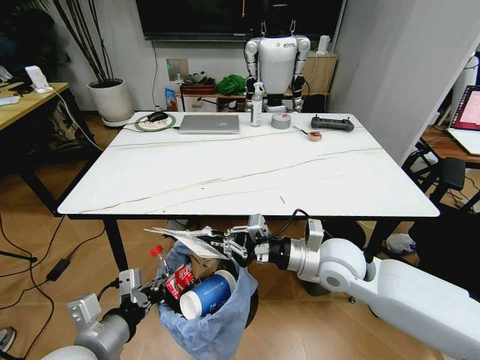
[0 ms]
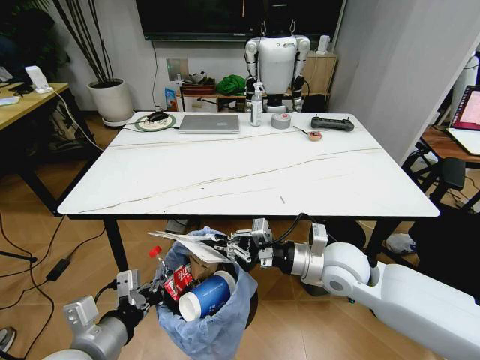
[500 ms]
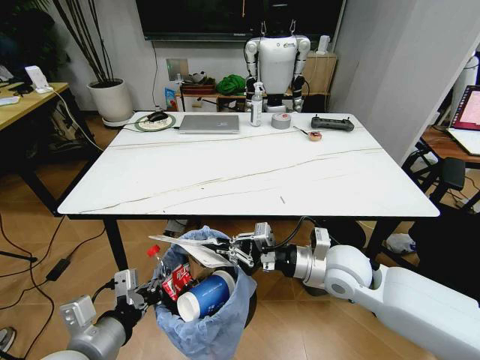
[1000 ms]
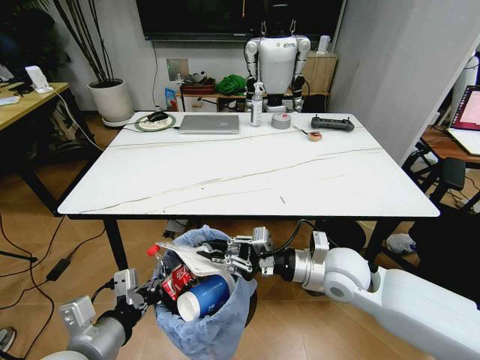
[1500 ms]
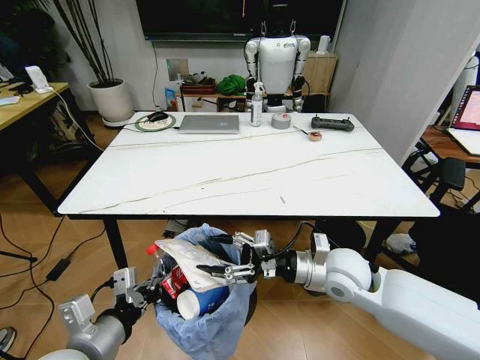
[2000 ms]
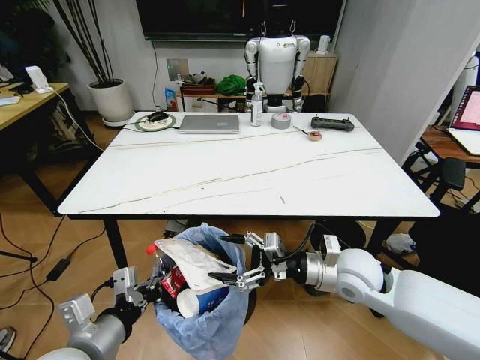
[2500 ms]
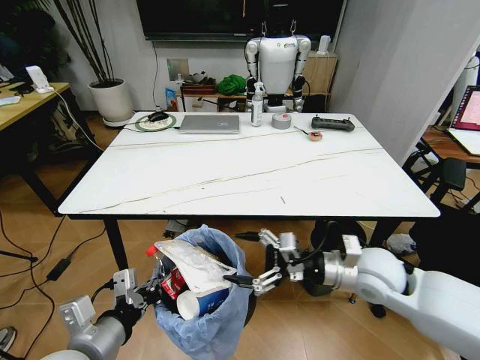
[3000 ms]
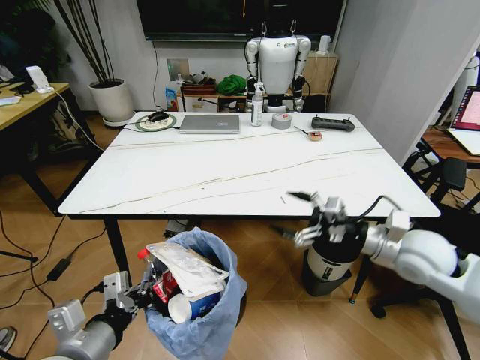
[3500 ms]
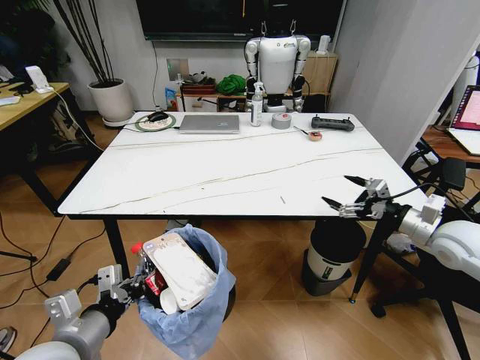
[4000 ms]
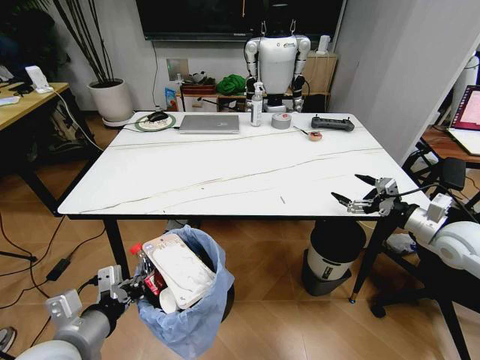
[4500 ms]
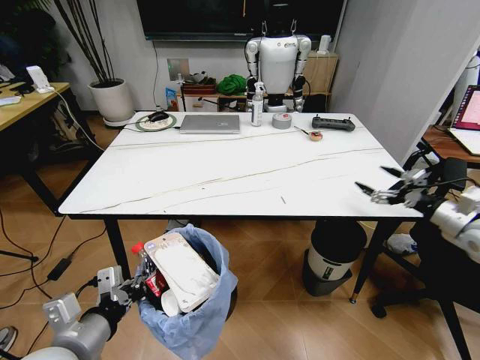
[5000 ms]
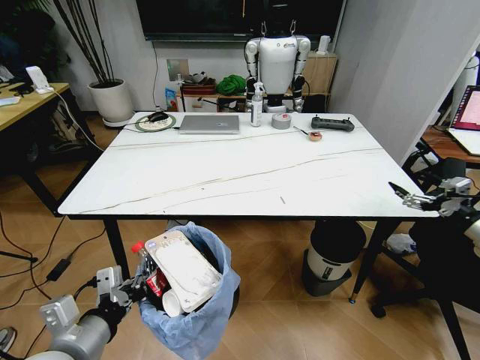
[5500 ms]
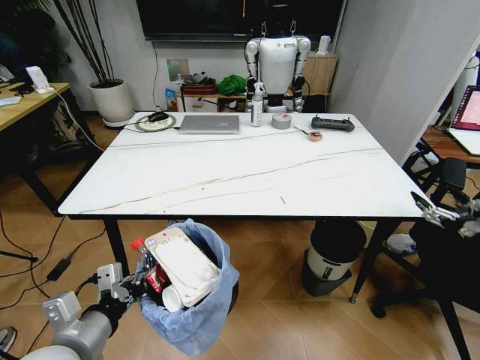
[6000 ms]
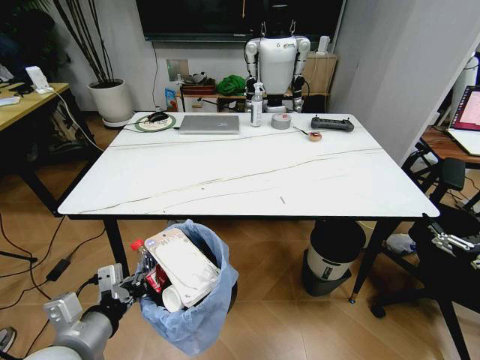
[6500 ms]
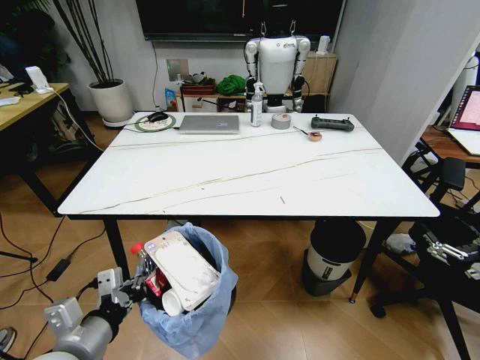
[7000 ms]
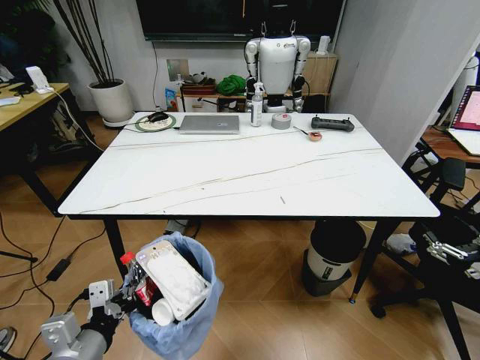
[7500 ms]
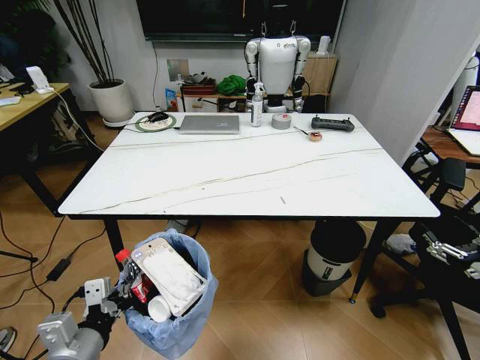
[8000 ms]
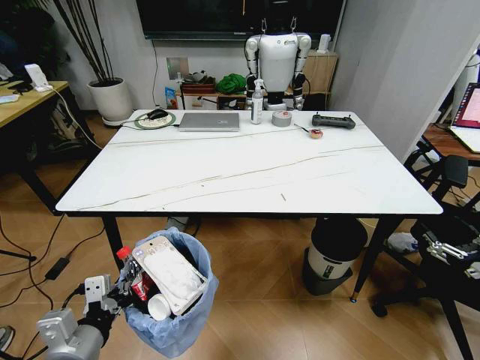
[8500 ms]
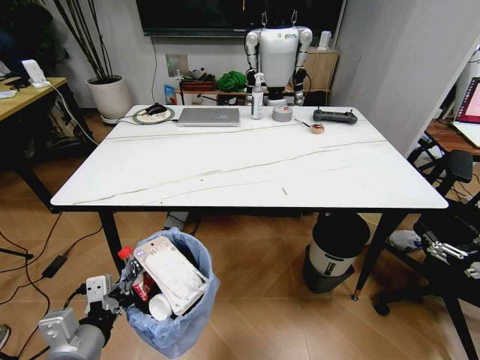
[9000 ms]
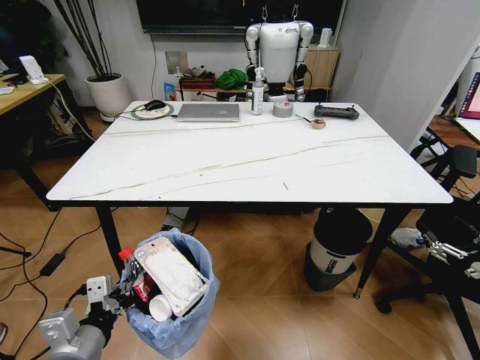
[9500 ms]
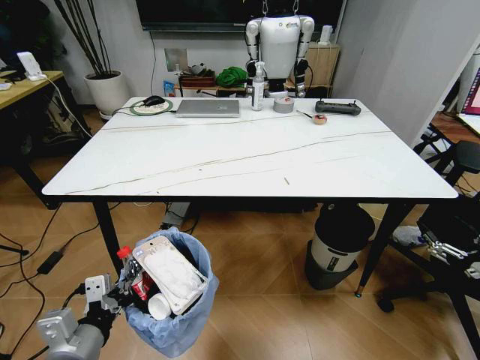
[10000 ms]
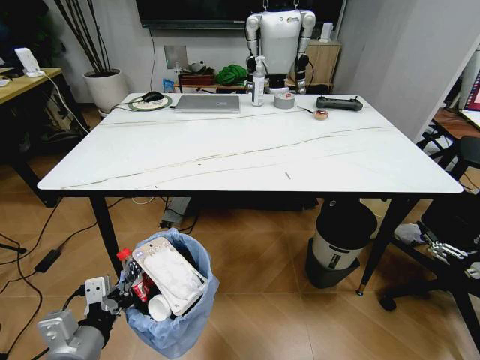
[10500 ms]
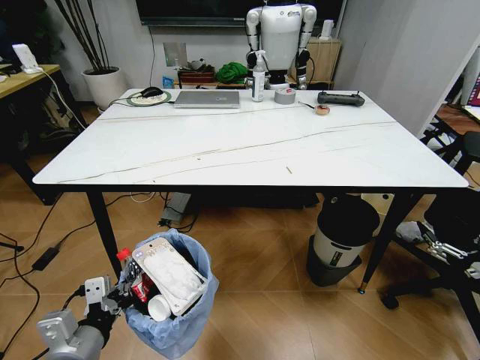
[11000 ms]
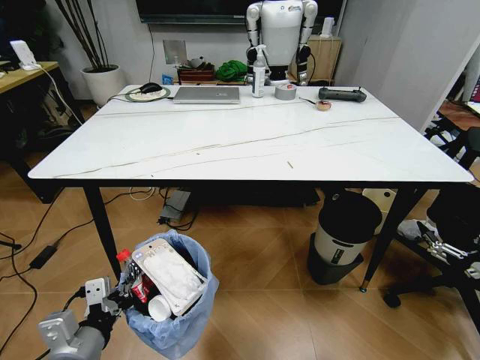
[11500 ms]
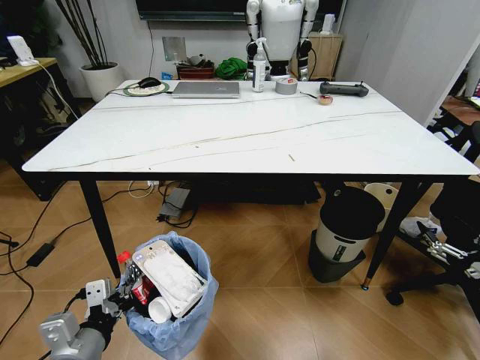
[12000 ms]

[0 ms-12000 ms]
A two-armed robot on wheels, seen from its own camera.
Task of the whole recording: Pick up the trash bin and place the trash from the table into it.
0 ms to 2000 ms: The right gripper opens its fingers.
2000 ms to 4000 ms: The right gripper heads to the right, covering approximately 25 cm.
4000 ms to 6000 ms: The right gripper goes about 15 cm to the right and backward.
6000 ms to 8000 ms: The right gripper heads backward and downward, covering some 10 cm.

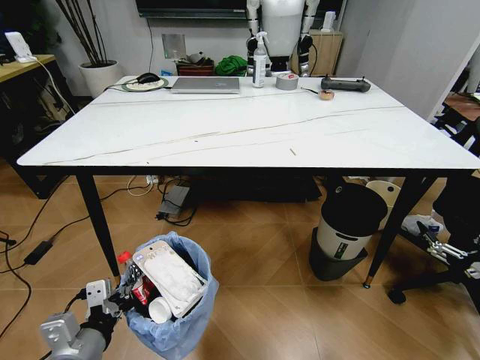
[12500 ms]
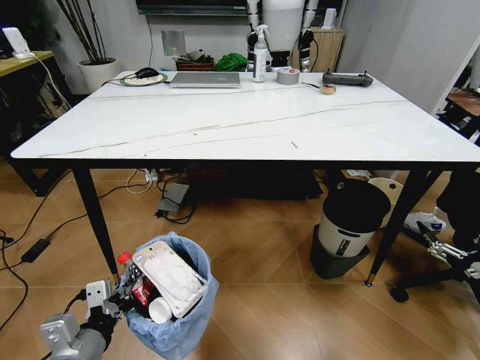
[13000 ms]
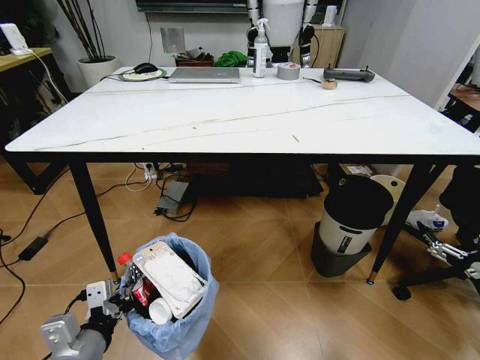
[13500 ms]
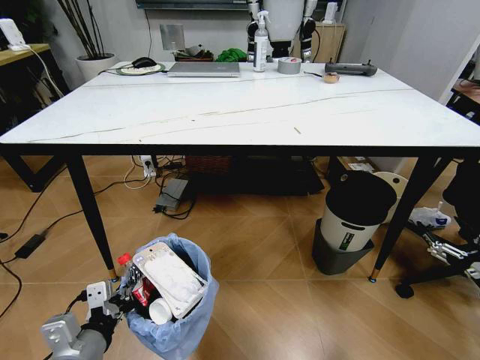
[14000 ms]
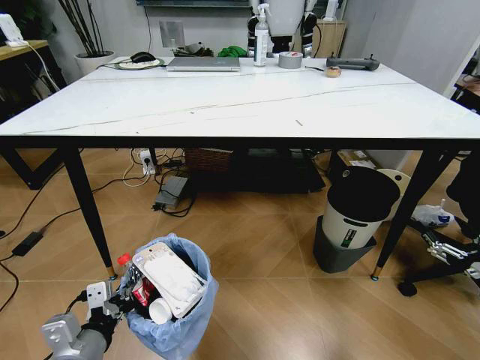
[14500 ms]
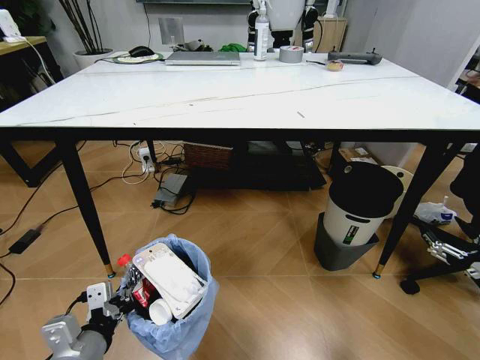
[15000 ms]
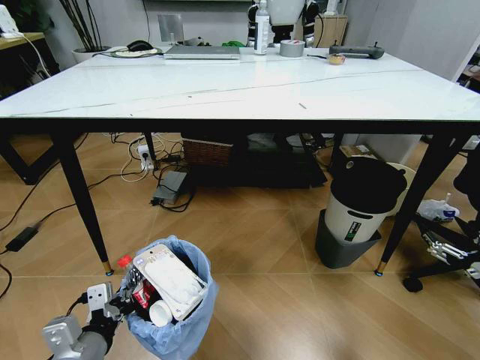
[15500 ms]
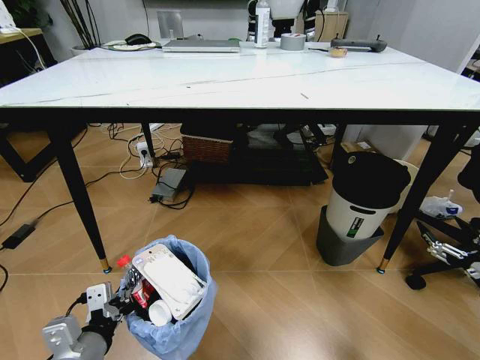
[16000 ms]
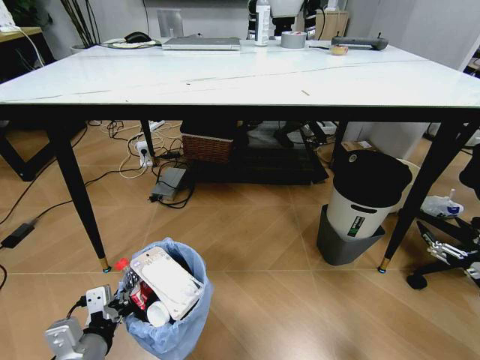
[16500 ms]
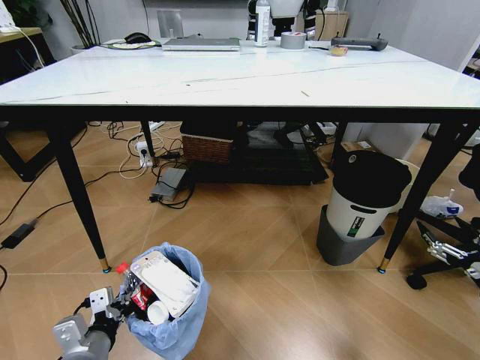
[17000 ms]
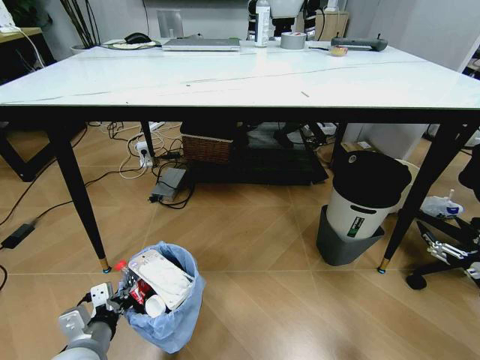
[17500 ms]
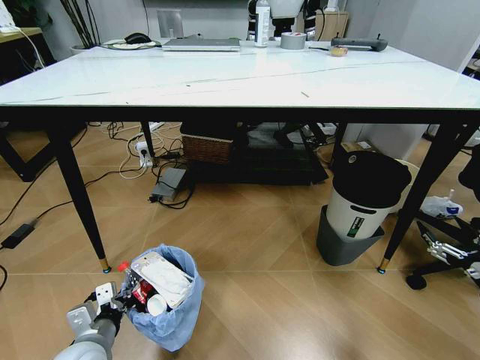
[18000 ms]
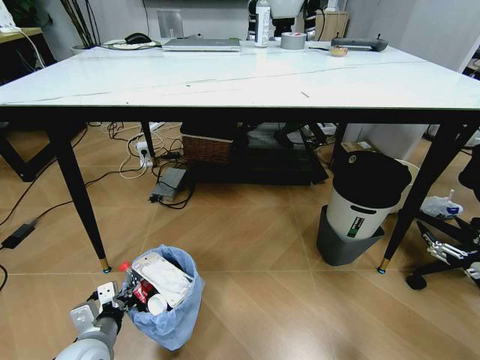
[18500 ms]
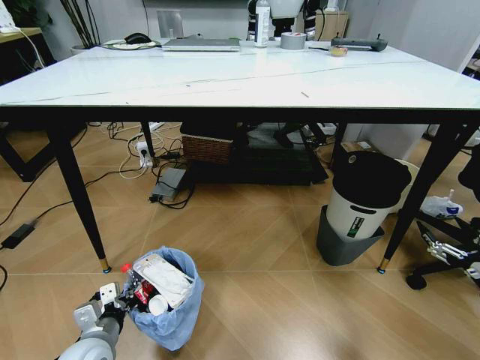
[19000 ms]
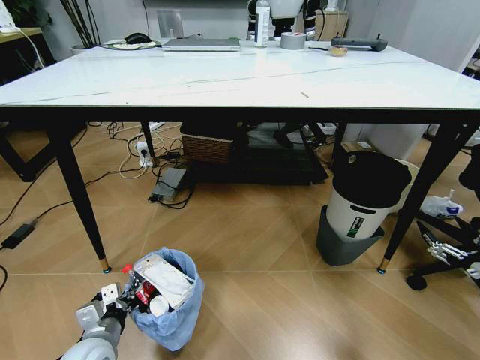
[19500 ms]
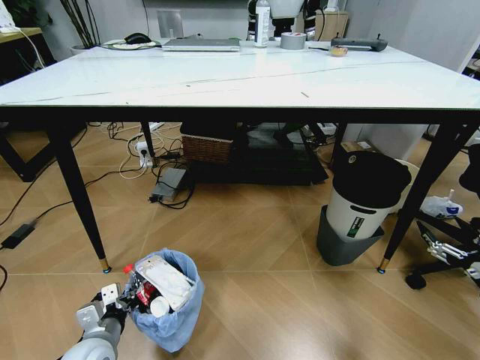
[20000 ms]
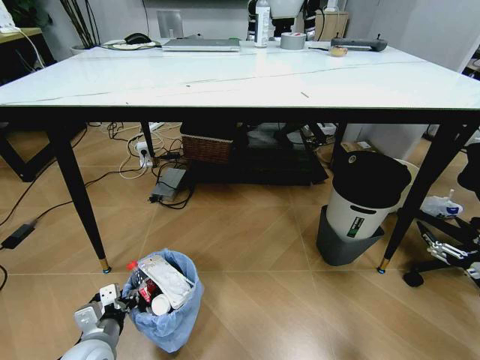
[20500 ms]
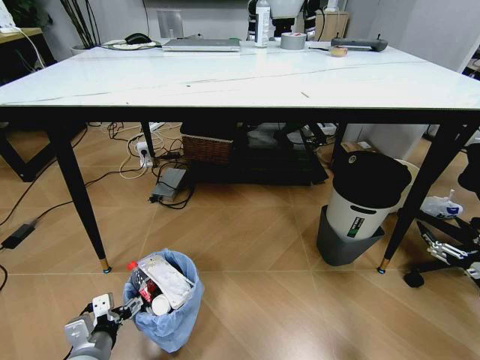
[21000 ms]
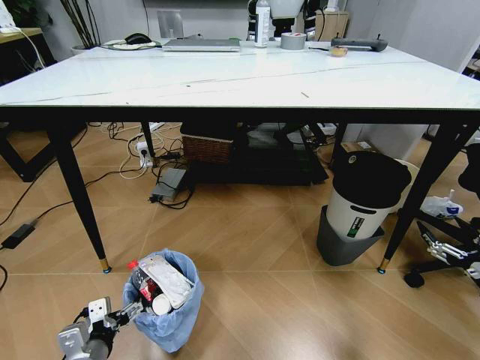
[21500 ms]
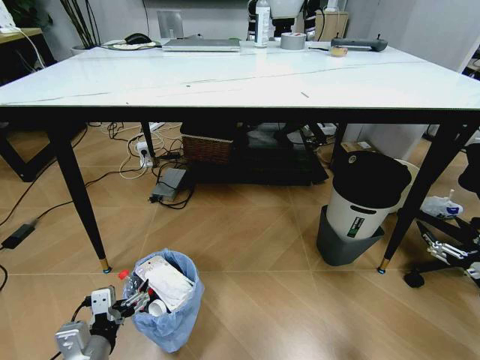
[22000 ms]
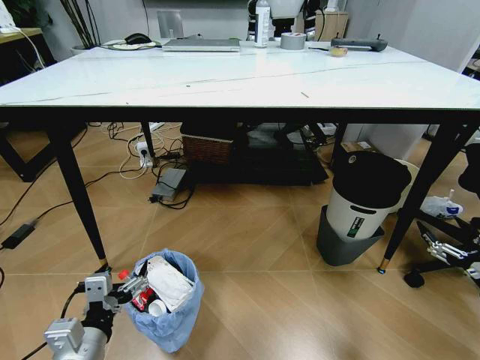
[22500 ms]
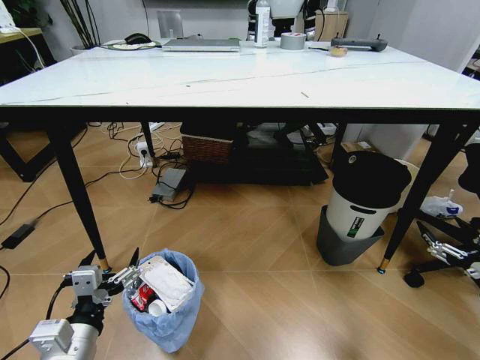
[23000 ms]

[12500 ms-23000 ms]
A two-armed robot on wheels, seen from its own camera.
Task of the whole recording: Pick up the trash bin and place the trash from the table into it.
16500 ms to 19000 ms: The left gripper moves downward and forward, some 10 cm.
19000 ms to 21000 ms: The left gripper opens its fingers.
21000 ms to 23000 ms: The left gripper heads upward, covering approximately 10 cm.
